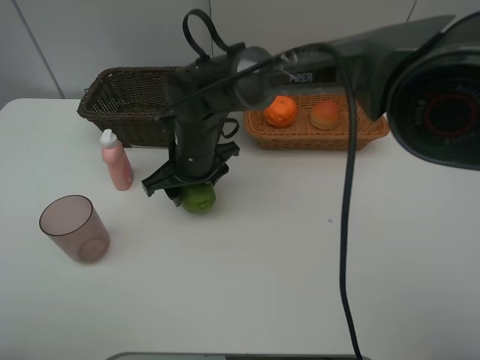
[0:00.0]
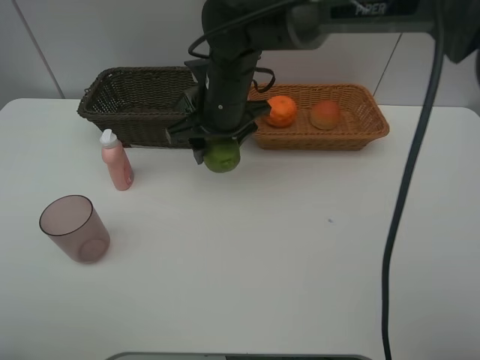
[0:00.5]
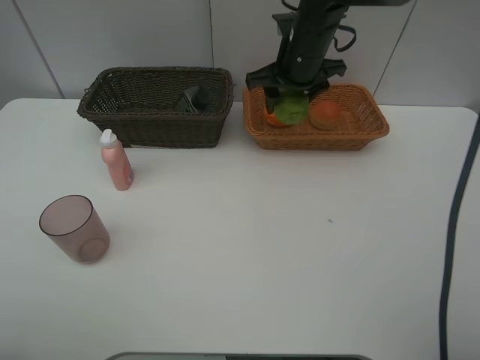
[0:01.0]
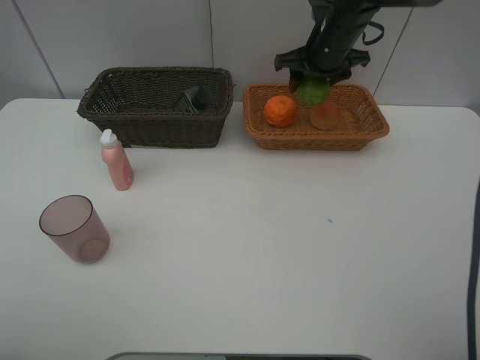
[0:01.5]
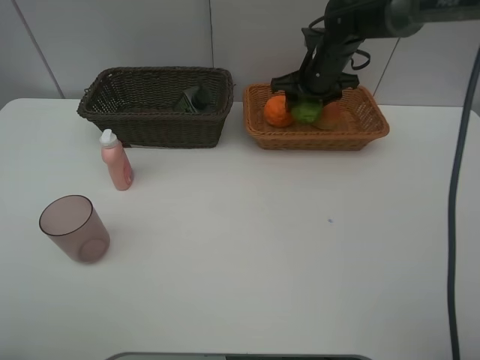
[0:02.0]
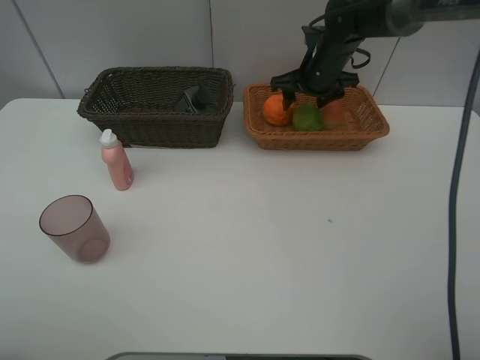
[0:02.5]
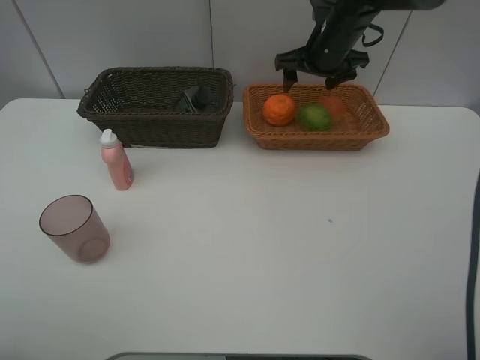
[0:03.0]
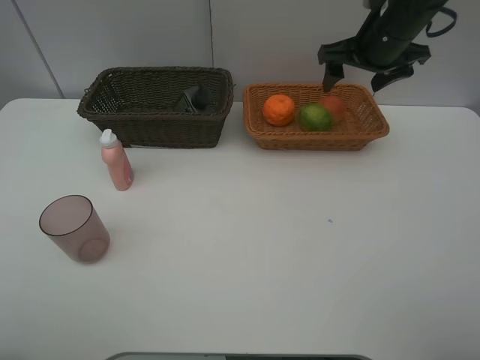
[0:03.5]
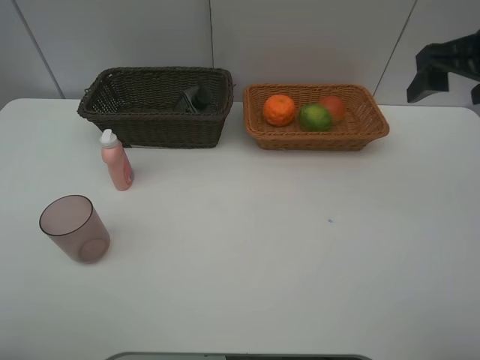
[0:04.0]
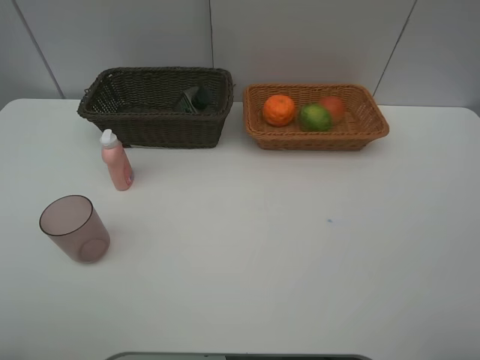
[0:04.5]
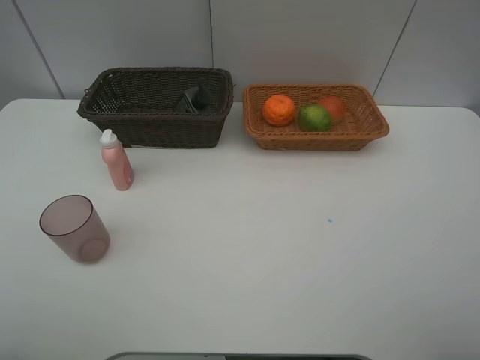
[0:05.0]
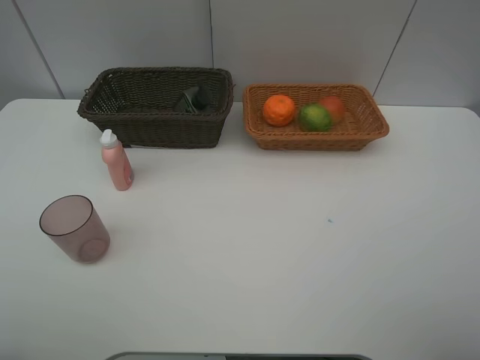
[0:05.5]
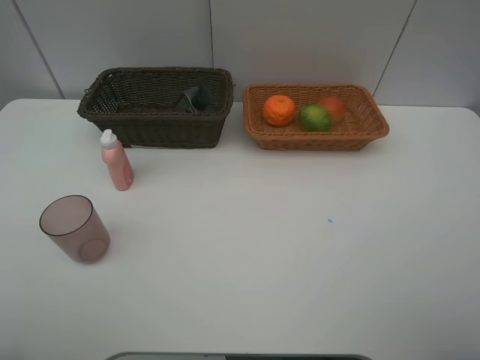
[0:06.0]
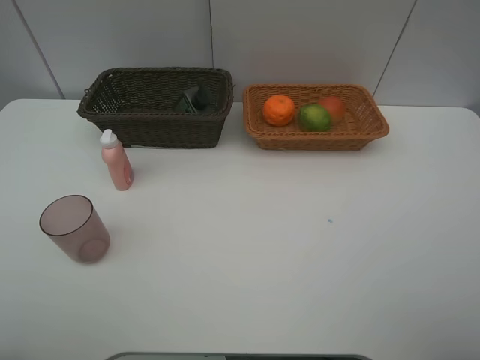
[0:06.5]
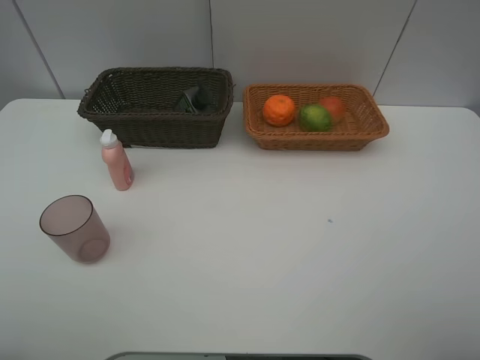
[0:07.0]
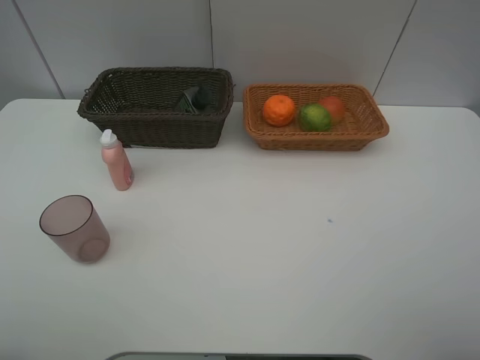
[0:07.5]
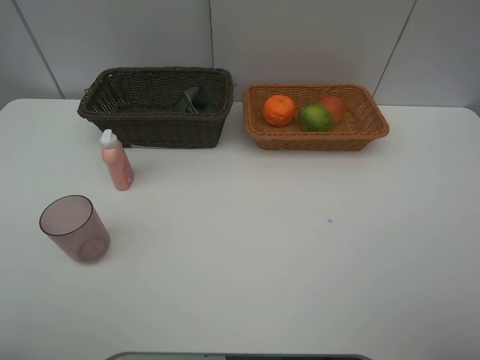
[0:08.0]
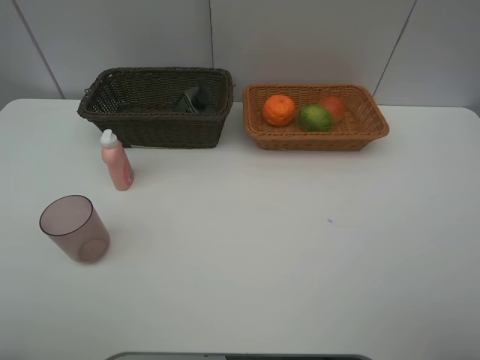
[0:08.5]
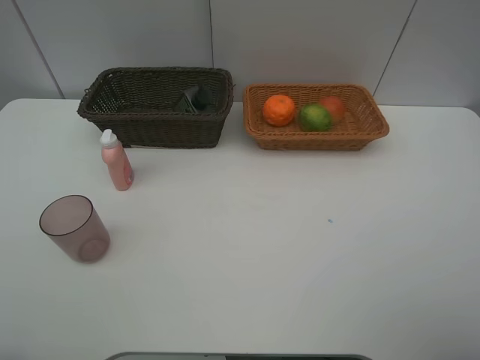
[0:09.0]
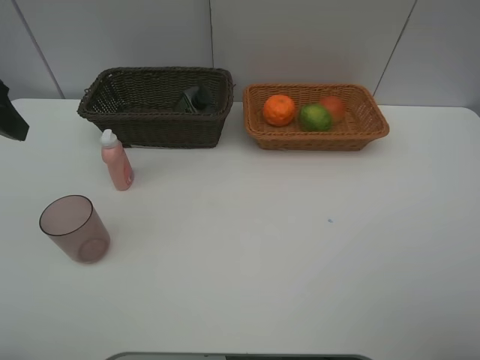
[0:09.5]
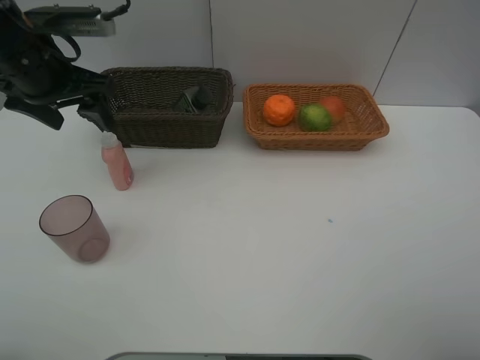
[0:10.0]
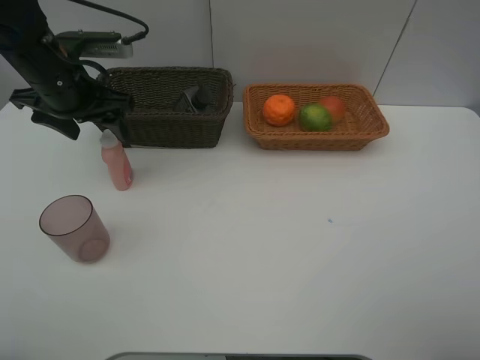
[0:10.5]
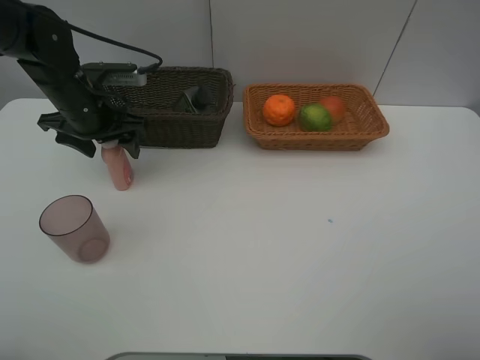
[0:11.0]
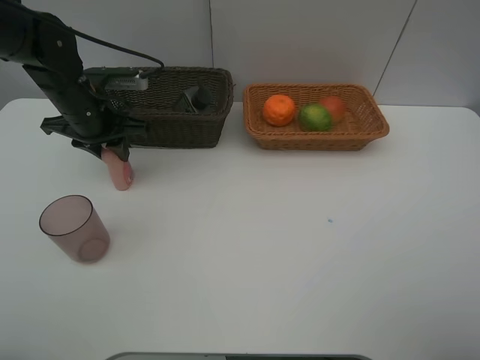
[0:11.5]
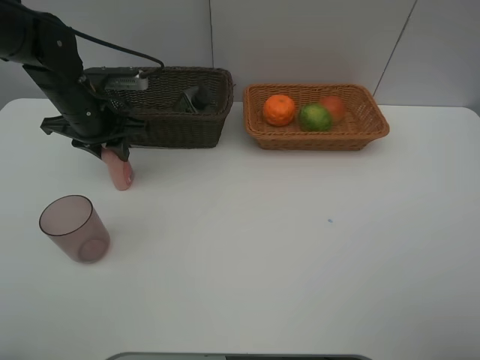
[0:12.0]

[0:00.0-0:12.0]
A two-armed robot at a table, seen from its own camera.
Task of the whole recording: place multiple objects separately in different baskets.
0:00.0 to 0:02.0: The right gripper moves to the right and forward, approximately 25 cm.
0:02.0 to 0:04.0: The right gripper travels backward, upward and to the right by approximately 30 cm, and opens up.
0:04.0 to 0:06.0: The right gripper heads backward, covering about 25 cm.
0:08.0 to 0:10.0: The left gripper moves forward, roughly 30 cm.
0:10.0 to 0:12.0: The left gripper moves downward, about 10 cm, and closes its fingers.

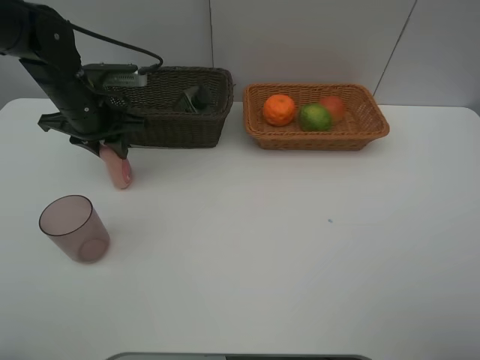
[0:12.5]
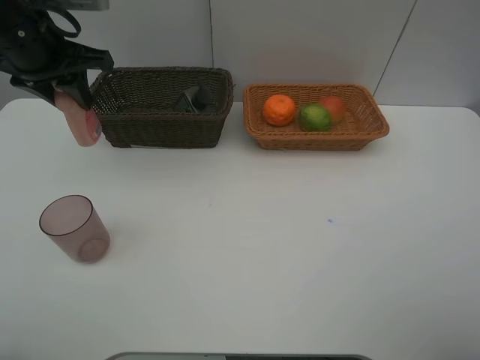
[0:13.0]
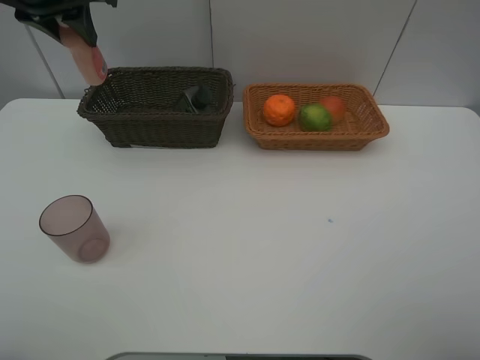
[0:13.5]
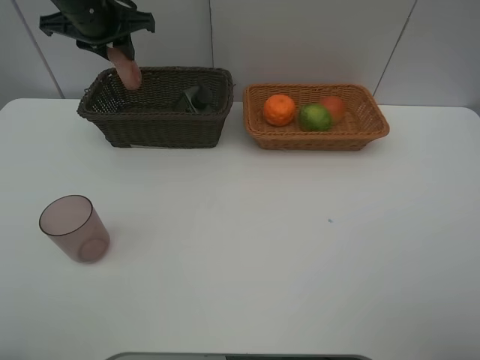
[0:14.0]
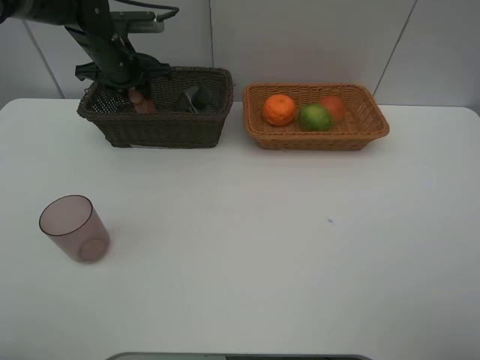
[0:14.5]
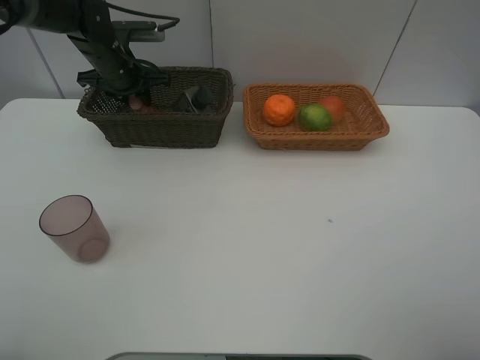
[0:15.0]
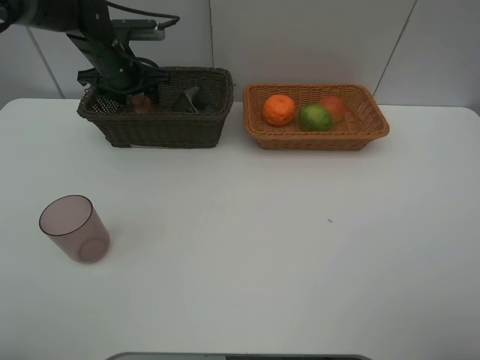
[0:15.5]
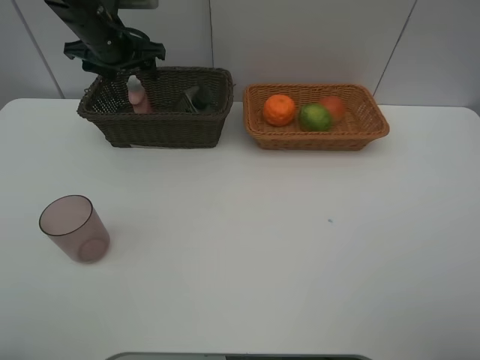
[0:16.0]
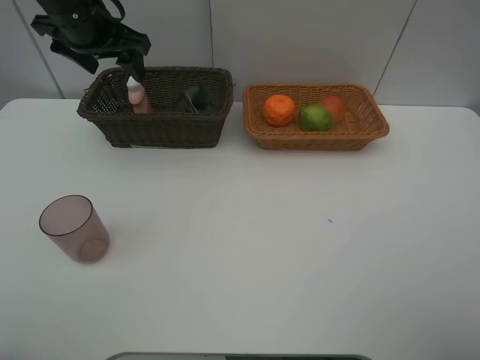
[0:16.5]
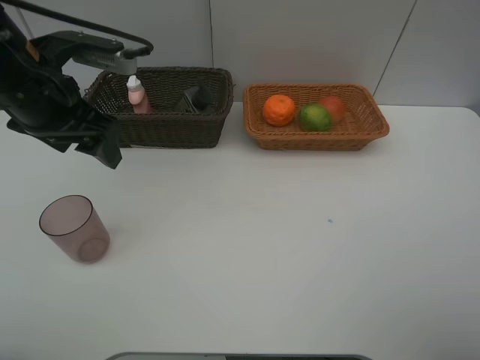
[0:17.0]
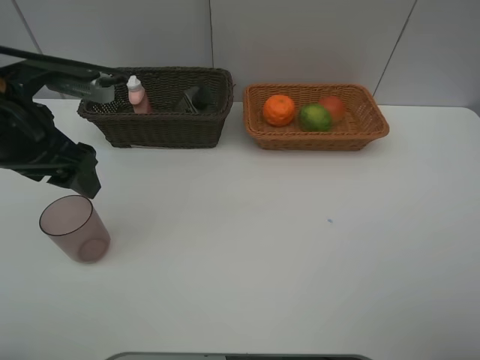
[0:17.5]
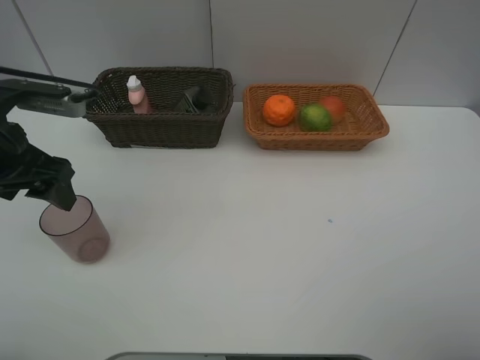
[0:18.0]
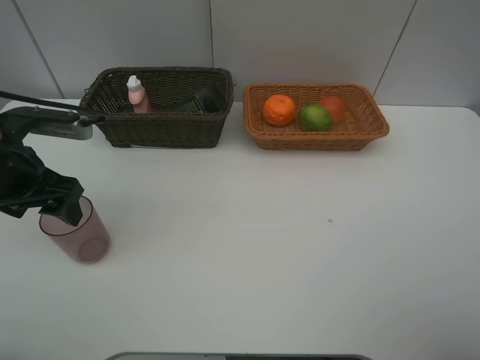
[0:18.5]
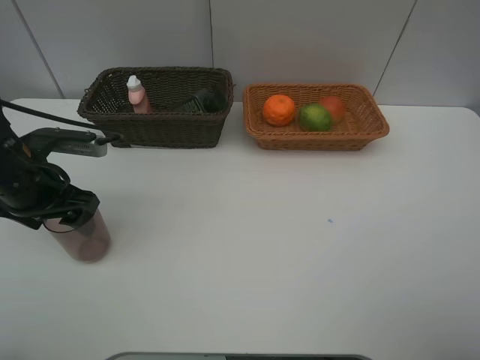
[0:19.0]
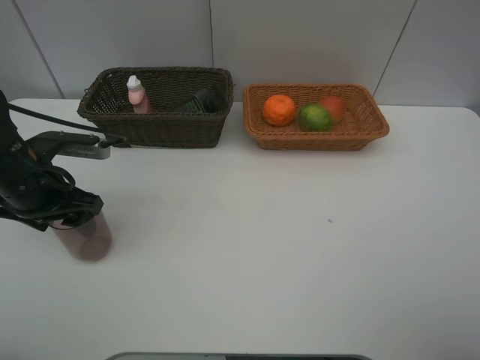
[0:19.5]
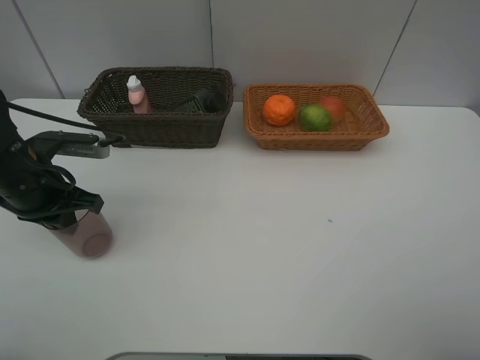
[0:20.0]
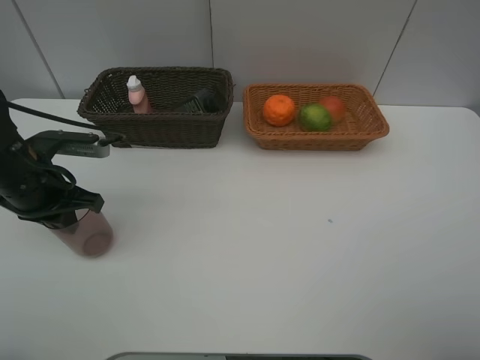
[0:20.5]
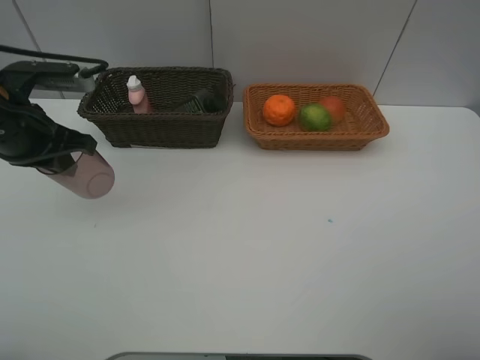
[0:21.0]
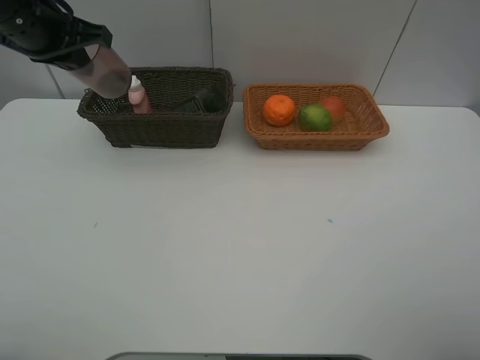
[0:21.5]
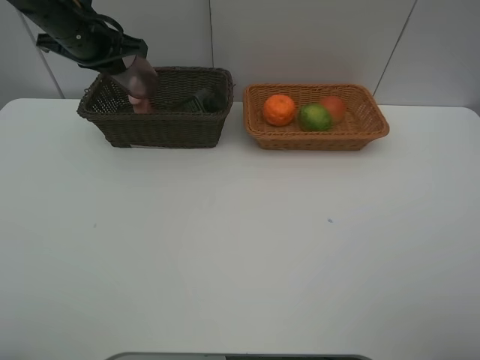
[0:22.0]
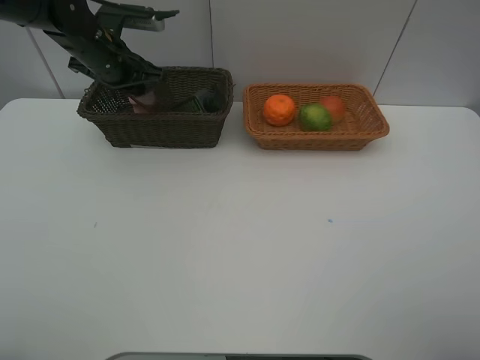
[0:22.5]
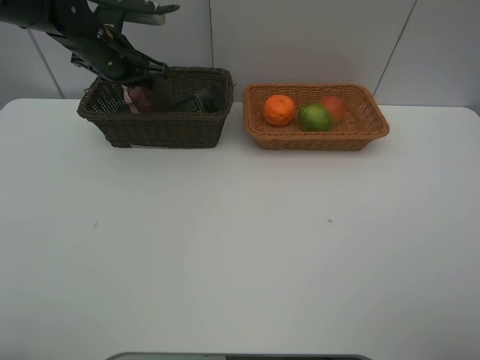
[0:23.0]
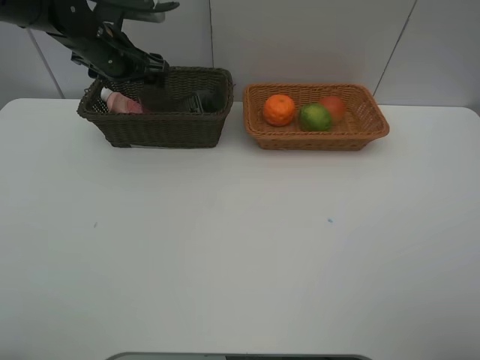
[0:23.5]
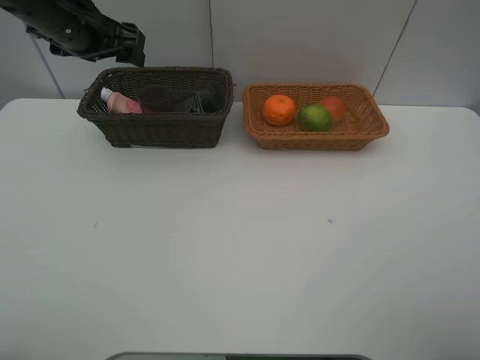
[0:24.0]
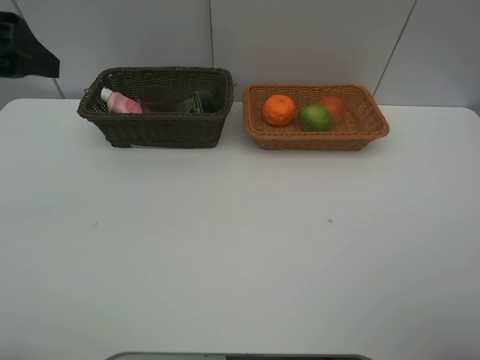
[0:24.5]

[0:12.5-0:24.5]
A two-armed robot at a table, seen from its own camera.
Task of the whole recording: place multiple objects separately in different baskets.
0:12.5 to 0:14.5: The left gripper travels forward by approximately 10 cm, and goes upward and returns, some 15 cm each way.
0:14.5 to 0:16.5: The left gripper moves upward and backward, roughly 10 cm, and opens.
0:16.5 to 0:18.5: The left gripper heads backward and downward, covering about 20 cm.
0:18.5 to 0:20.5: The left gripper closes.
0:20.5 to 0:22.5: The left gripper is displaced forward by roughly 20 cm.
0:22.5 to 0:24.5: The left gripper is displaced backward and upward by some 25 cm, and opens its fingers.

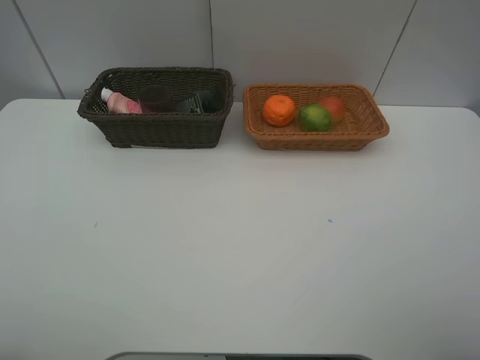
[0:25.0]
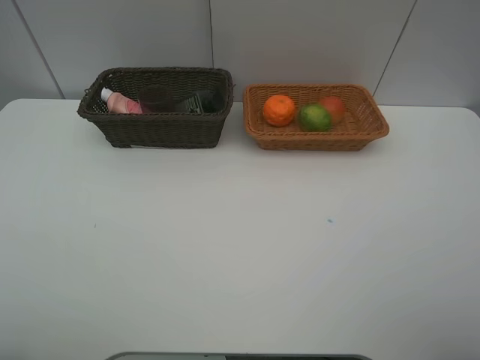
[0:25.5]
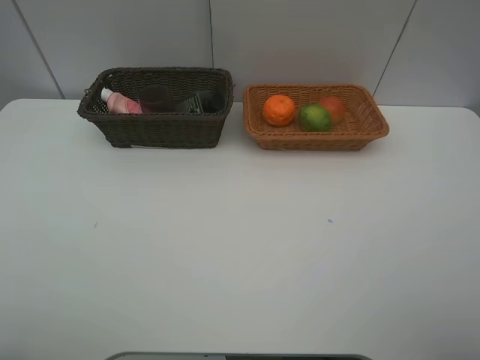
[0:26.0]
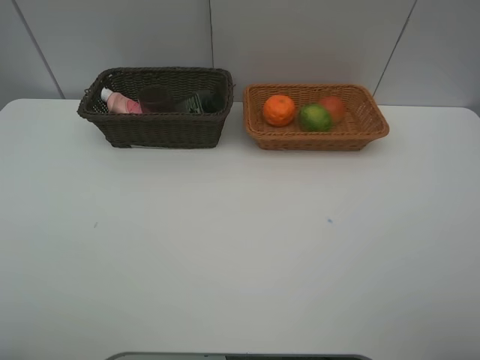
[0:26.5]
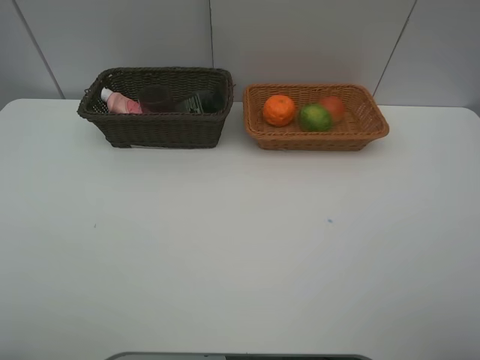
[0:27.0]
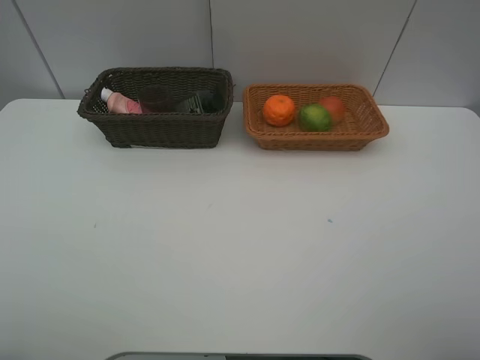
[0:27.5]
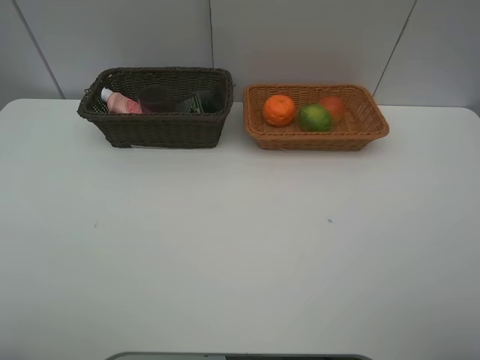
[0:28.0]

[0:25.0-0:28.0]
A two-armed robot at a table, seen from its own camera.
Task of the whole recording: place multiple objects separately in different baskets.
0:26.5 to 0:28.0: Neither gripper changes place.
